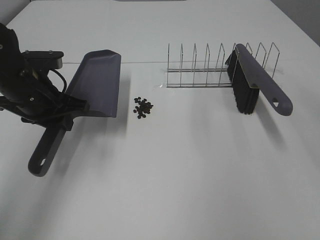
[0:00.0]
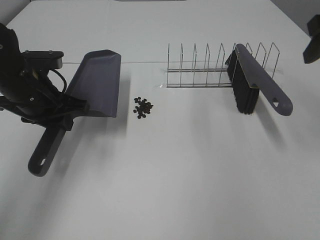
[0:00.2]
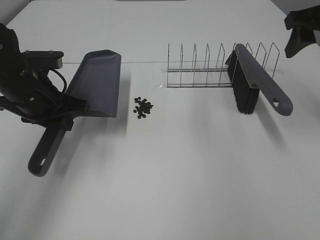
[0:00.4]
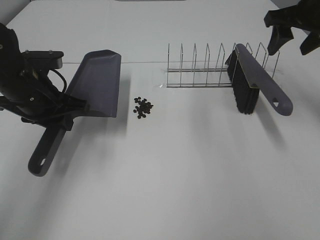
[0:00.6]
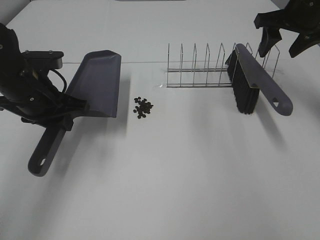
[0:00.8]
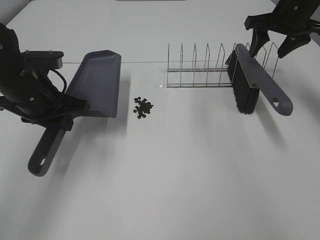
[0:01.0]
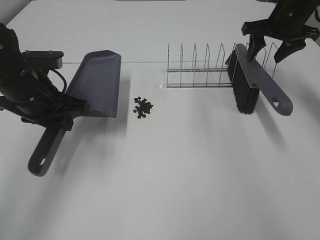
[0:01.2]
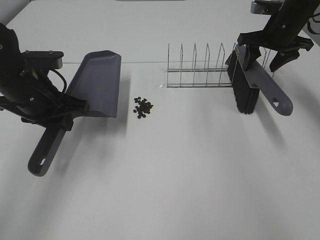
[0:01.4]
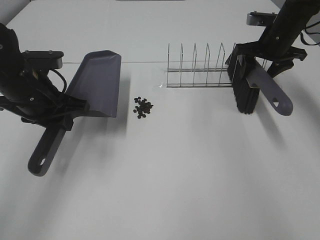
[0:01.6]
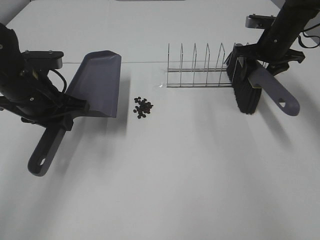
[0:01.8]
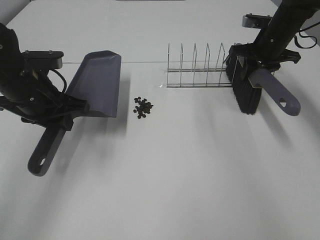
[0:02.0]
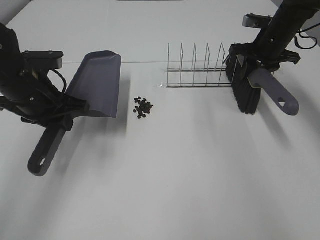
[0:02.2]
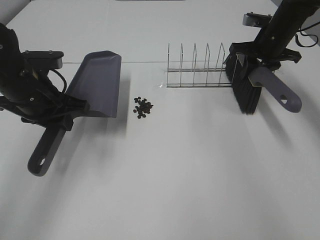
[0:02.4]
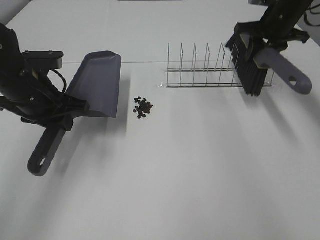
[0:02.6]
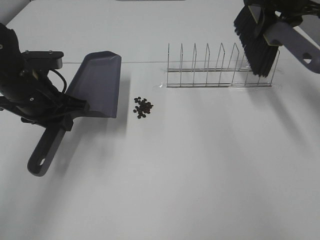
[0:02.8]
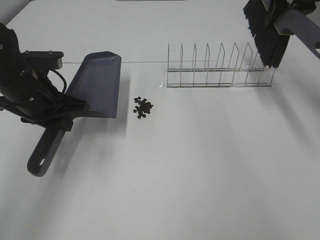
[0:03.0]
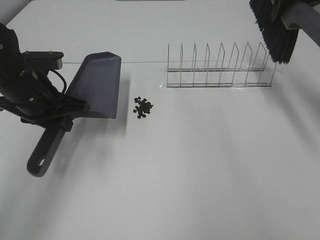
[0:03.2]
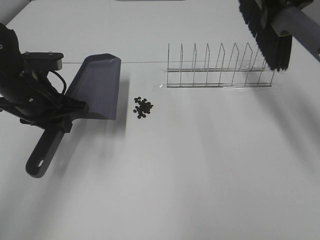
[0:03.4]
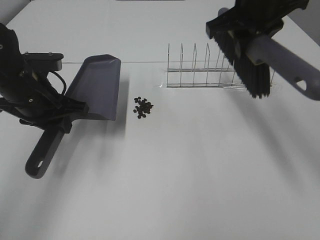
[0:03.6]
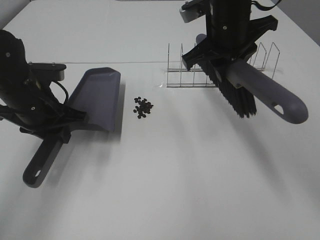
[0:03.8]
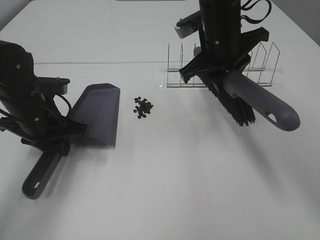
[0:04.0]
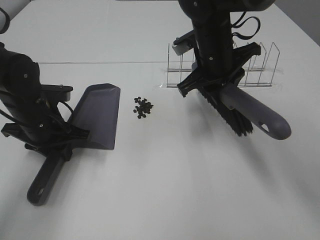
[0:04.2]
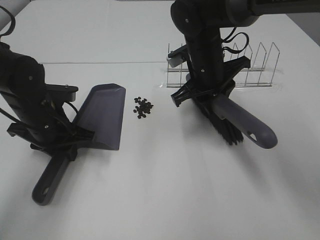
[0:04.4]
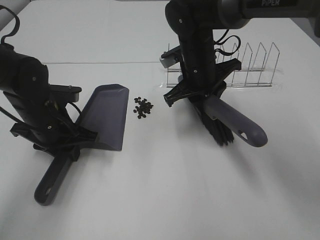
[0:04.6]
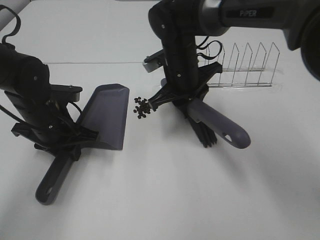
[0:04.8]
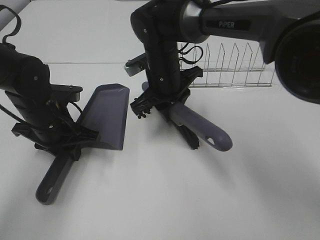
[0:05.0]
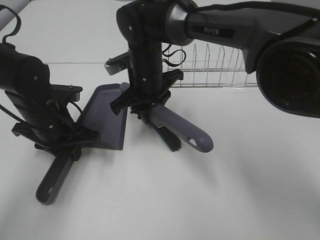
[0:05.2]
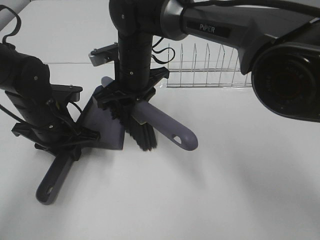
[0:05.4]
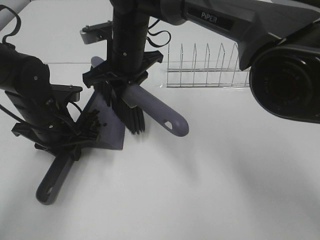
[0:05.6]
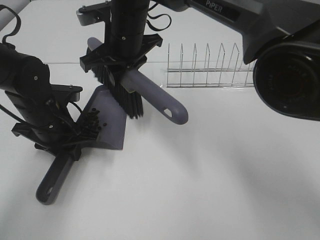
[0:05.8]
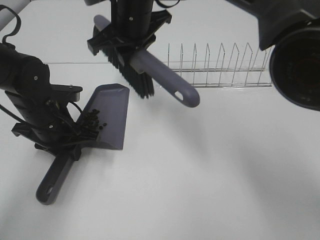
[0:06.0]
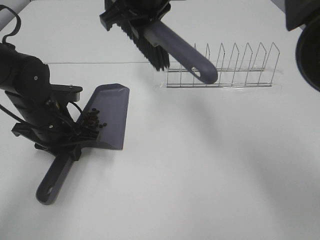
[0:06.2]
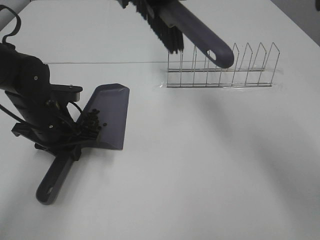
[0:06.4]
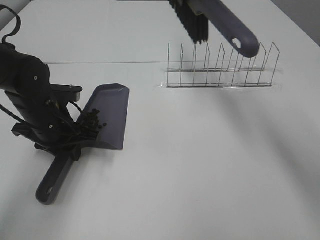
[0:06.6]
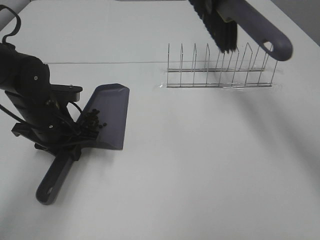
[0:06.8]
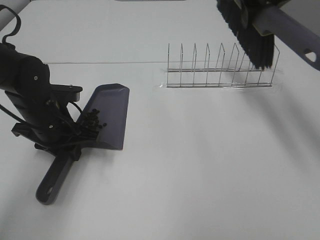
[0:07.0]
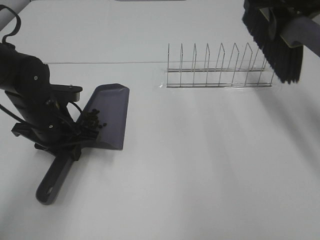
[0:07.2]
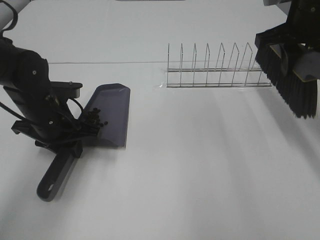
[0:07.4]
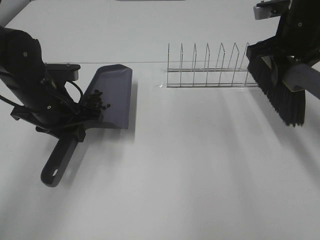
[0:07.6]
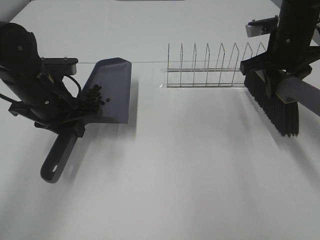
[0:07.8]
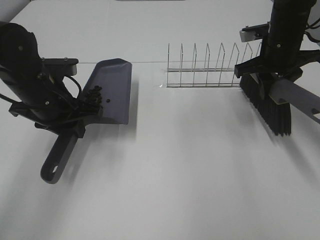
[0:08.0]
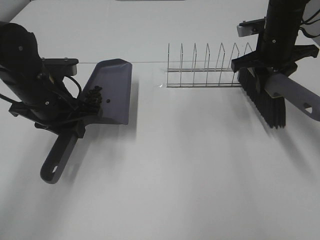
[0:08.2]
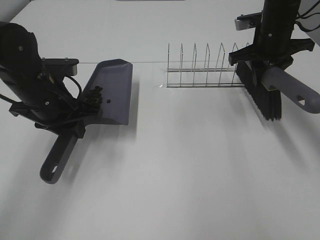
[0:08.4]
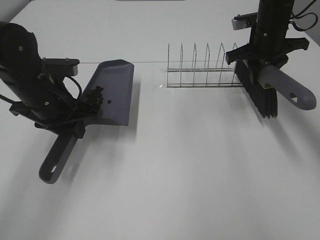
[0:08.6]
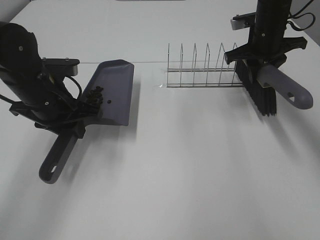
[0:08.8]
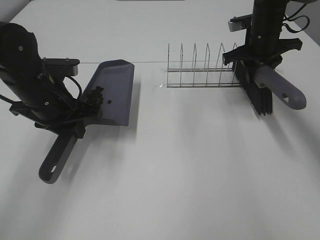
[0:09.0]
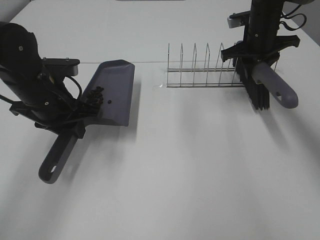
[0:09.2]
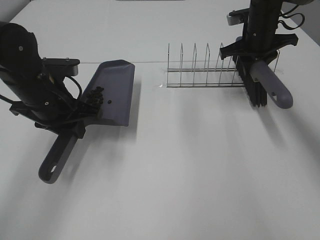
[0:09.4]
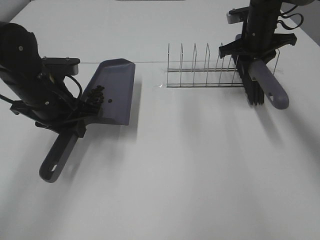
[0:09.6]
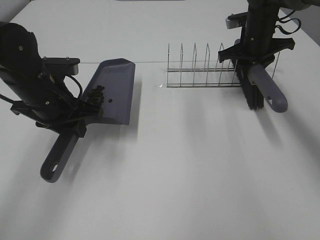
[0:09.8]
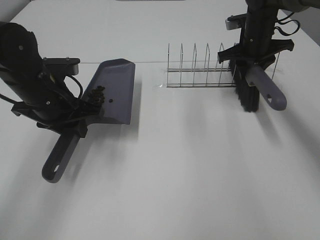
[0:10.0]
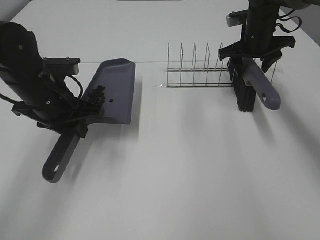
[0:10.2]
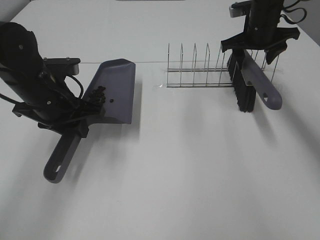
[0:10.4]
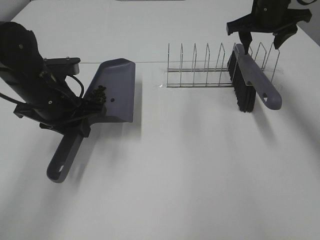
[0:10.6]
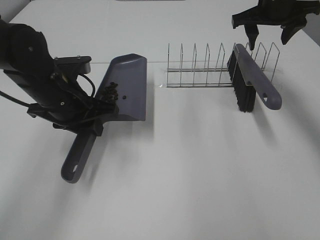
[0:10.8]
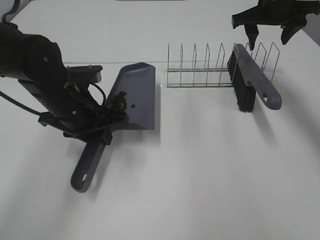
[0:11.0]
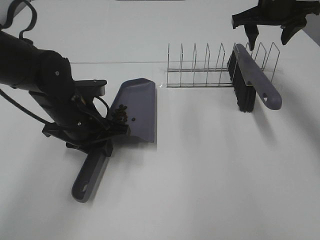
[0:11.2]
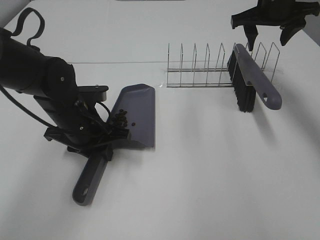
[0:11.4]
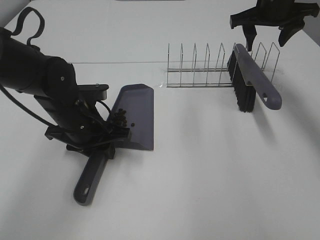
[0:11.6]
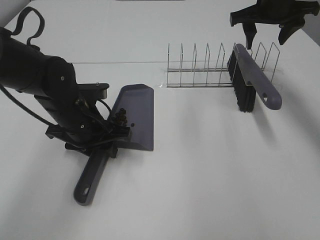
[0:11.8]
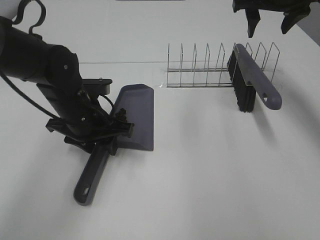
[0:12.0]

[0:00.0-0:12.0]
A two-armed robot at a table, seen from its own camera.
Task of the whole recording: Sweep Coffee Bean.
Step, 0:00.0 to 0:02.2: Right hand:grab the broom.
Step, 0:02.4 to 0:05.8: Right hand:sweep the coffee beans into the dustpan.
Step, 0:06.0 to 0:10.2: Right hand:place the broom on the rack.
0:00.0 to 0:01.6: The right gripper is displaced forward and downward by roughly 30 cm.
0:01.6 to 0:03.0: The right gripper moves upward, roughly 15 cm, and closes up.
0:03.0 to 0:04.4: The right gripper goes roughly 25 cm to the left, downward and backward. Meanwhile the left gripper goes some 5 cm downward.
0:04.4 to 0:06.0: The right gripper travels to the left and upward by about 15 cm.
0:06.0 to 0:07.6: The right gripper travels to the right by about 25 cm.
0:07.6 to 0:09.0: The right gripper travels forward and downward by approximately 10 cm.
0:09.0 to 0:10.4: The right gripper opens.
0:10.4 to 0:12.0: The left gripper moves roughly 5 cm, and opens up; the right gripper is displaced upward by roughly 10 cm.

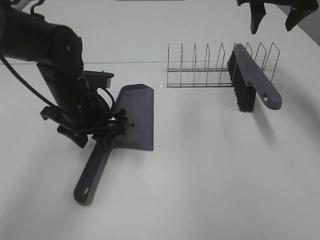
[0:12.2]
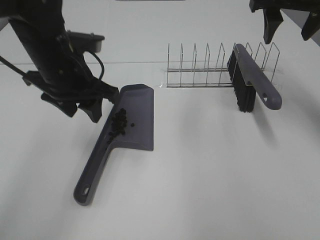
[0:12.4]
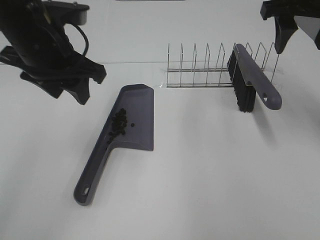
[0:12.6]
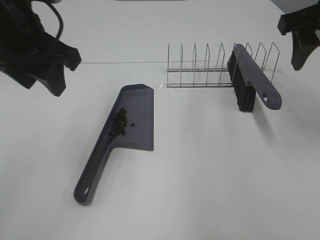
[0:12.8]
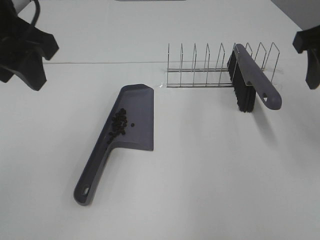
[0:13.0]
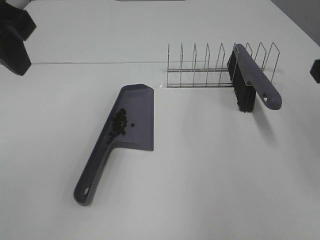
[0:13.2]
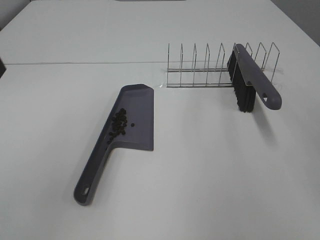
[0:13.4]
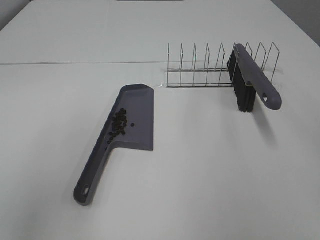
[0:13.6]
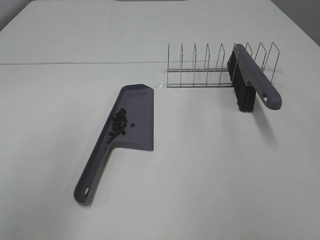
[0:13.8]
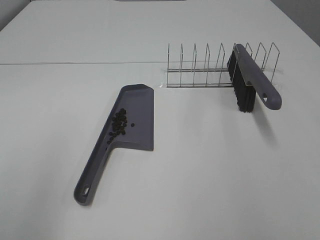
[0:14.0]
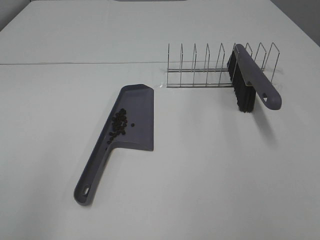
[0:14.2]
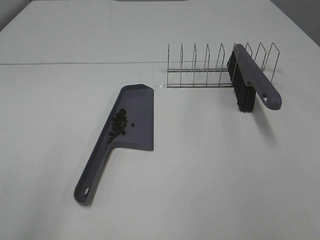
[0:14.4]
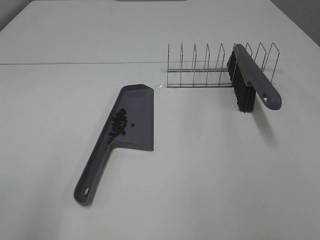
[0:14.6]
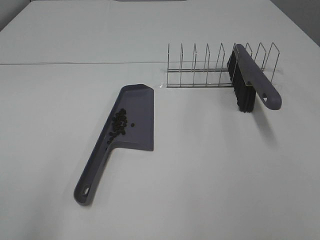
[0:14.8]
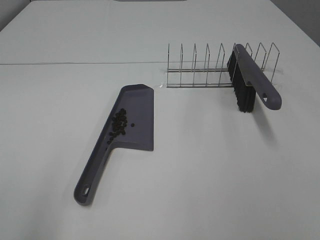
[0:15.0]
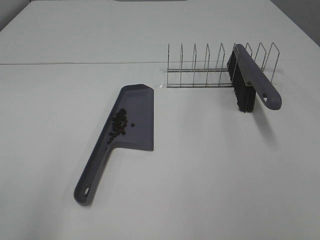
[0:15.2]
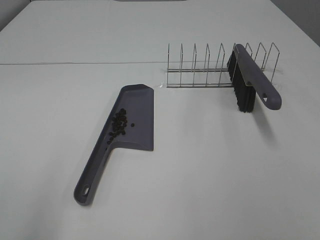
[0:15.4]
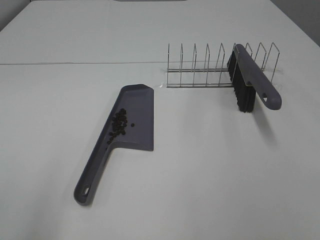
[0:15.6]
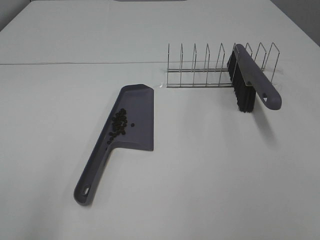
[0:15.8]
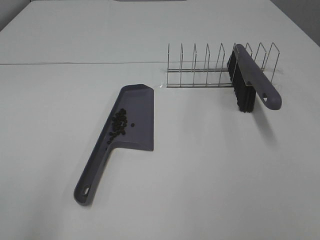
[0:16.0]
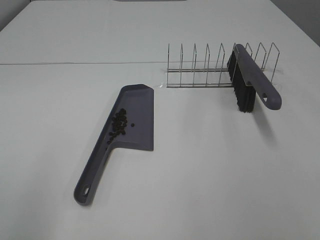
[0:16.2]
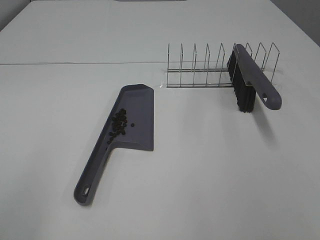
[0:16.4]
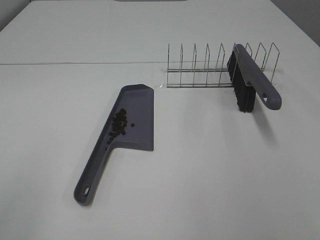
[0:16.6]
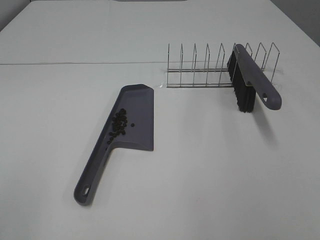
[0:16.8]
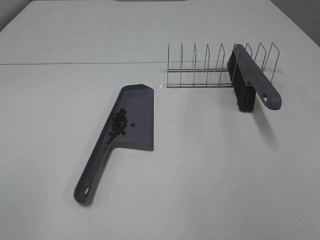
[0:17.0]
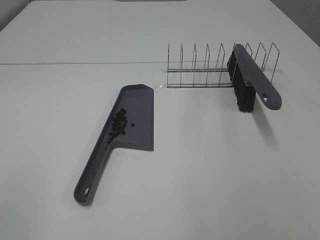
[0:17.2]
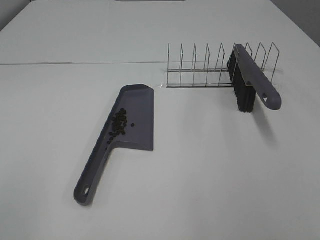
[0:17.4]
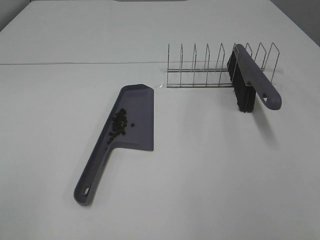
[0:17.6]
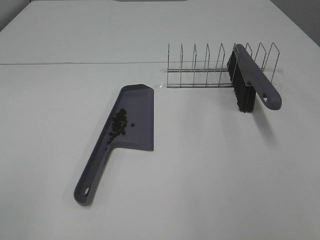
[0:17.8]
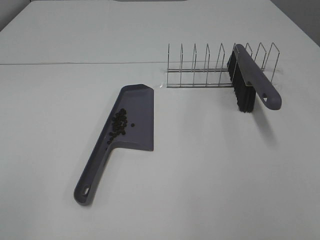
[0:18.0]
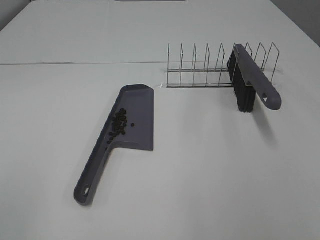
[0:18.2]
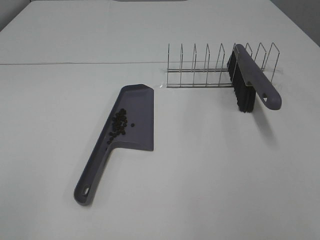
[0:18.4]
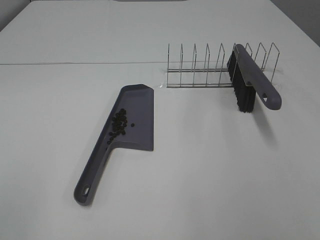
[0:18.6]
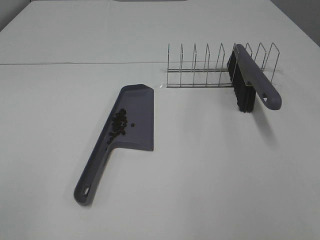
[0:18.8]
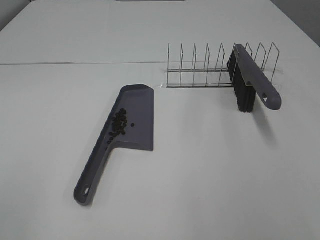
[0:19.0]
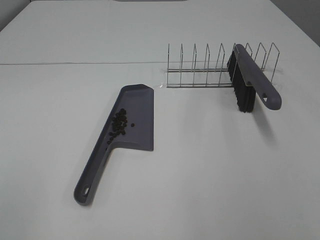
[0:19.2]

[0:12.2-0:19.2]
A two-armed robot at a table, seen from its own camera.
Task of the whole recording: Sweep Coffee Bean.
0:12.2 to 0:13.6: The right gripper goes approximately 30 cm backward, while the left gripper shifts approximately 30 cm upward, backward and to the left.
0:17.8 to 0:19.2: Neither gripper changes place.

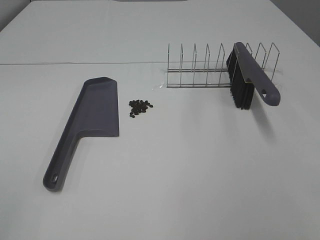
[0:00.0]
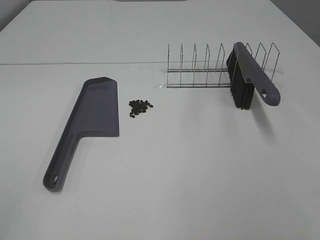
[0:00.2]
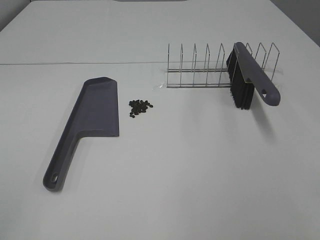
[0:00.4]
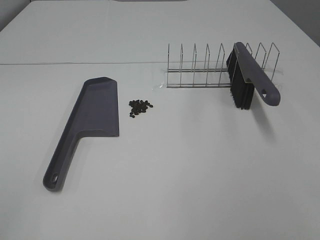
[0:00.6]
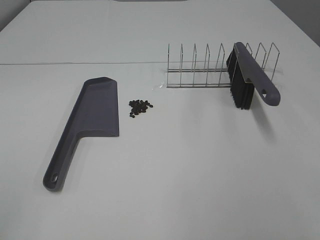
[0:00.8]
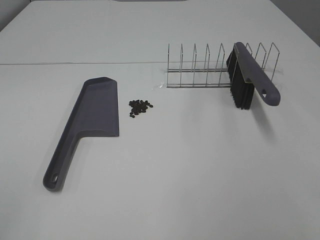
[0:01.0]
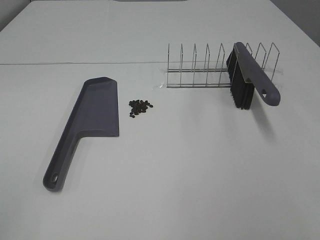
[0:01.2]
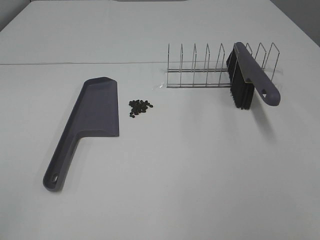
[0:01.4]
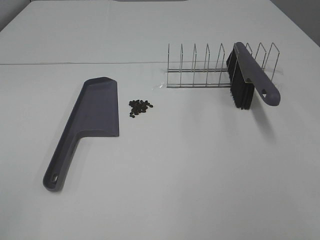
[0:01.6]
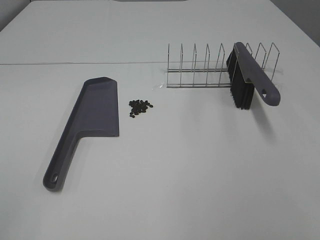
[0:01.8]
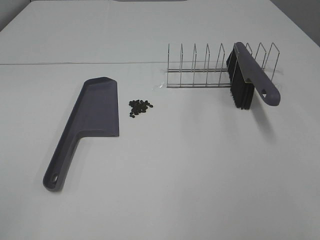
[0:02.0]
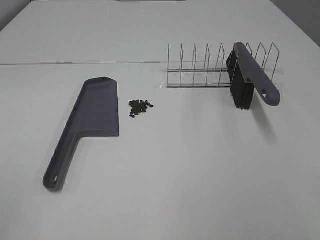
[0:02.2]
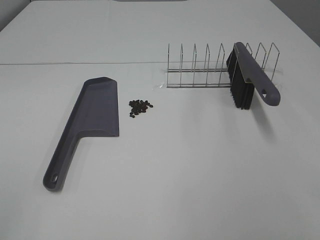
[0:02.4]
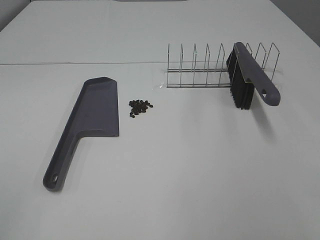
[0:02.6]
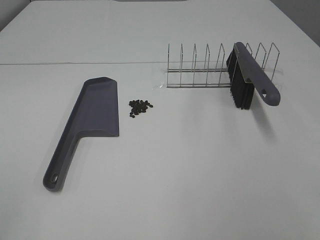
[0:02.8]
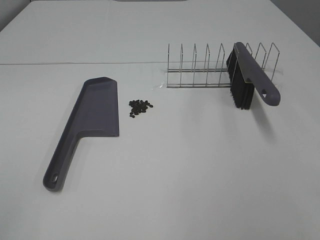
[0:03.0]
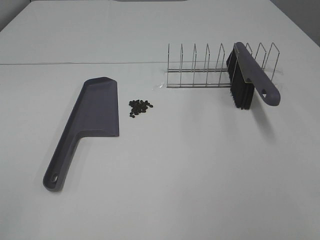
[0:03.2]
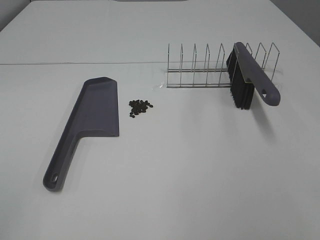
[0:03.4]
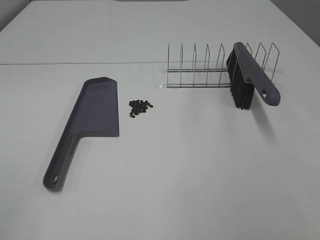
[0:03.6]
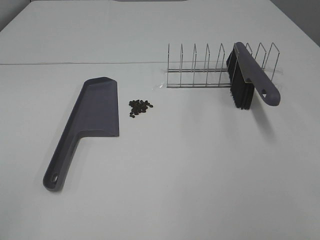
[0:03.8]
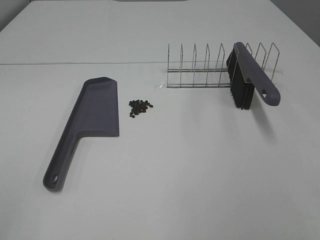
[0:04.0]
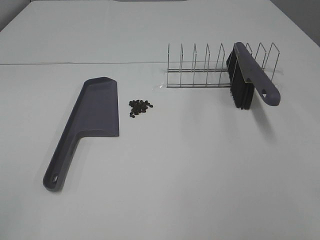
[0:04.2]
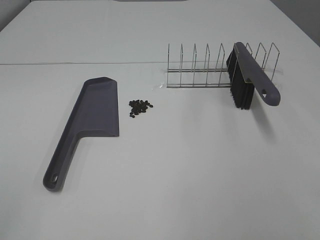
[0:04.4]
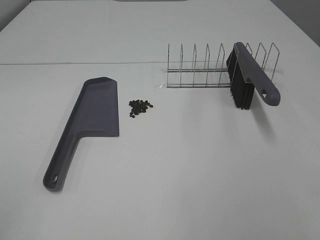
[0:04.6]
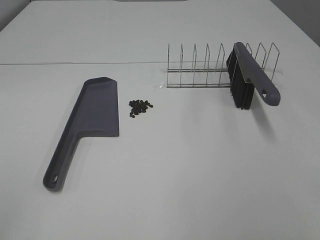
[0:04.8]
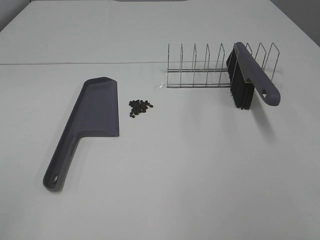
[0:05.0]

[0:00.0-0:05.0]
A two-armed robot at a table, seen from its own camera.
Task of the whole recording: Sweep Coffee Bean.
0:00.0 to 0:05.0: Neither gripper changes place.
